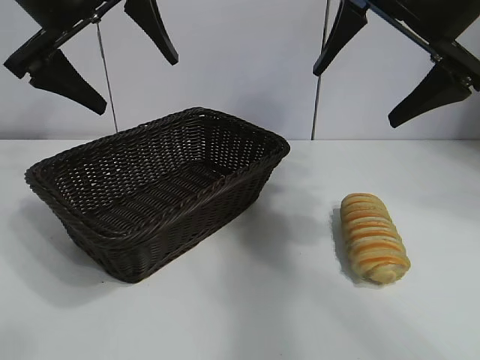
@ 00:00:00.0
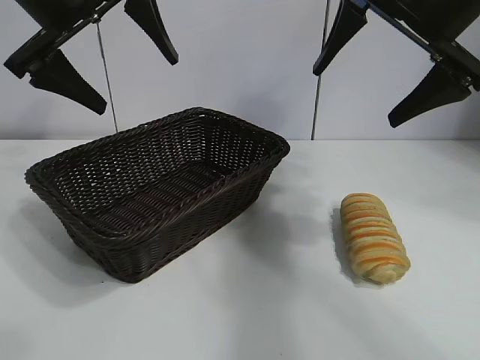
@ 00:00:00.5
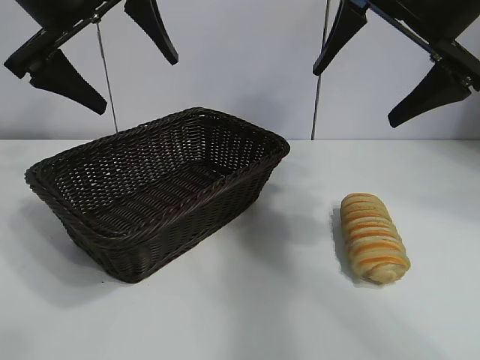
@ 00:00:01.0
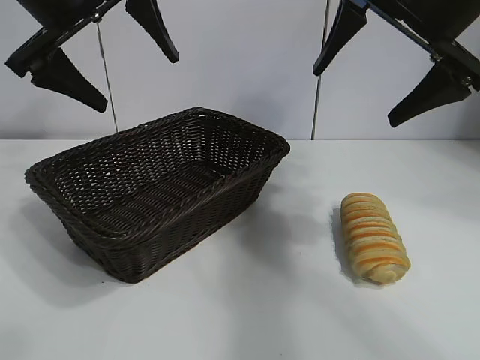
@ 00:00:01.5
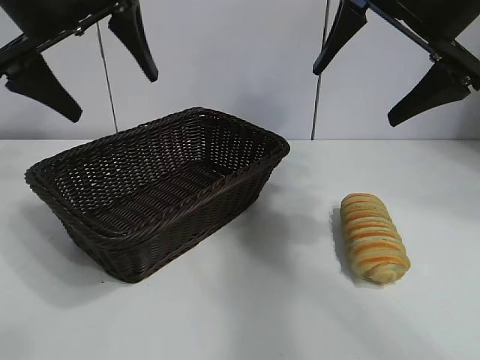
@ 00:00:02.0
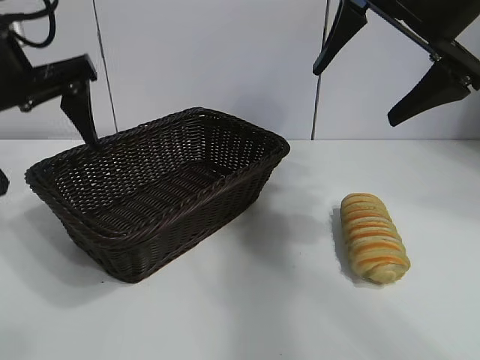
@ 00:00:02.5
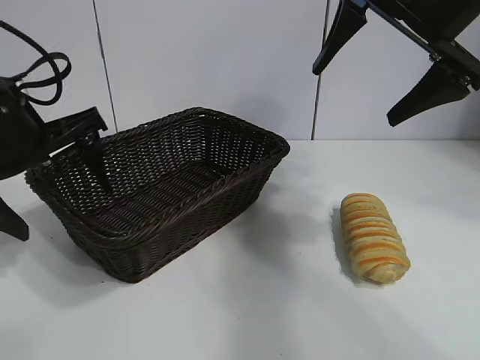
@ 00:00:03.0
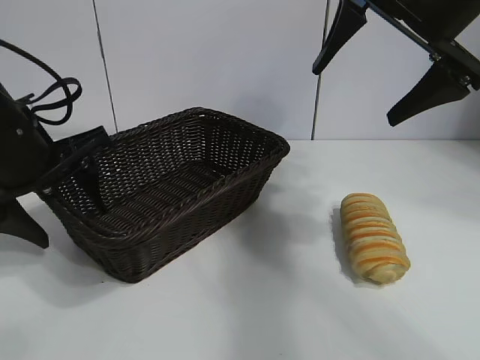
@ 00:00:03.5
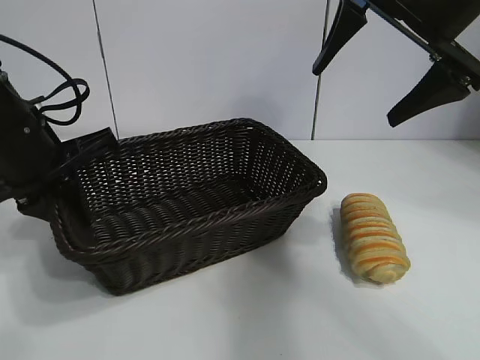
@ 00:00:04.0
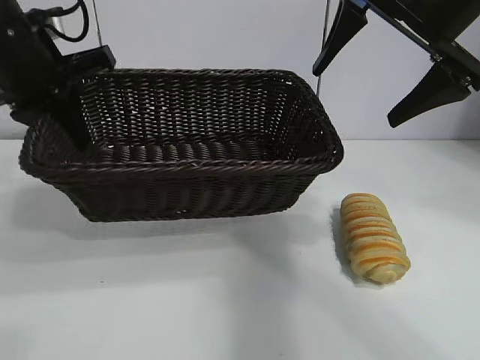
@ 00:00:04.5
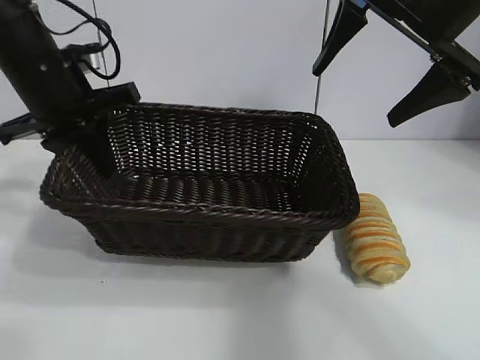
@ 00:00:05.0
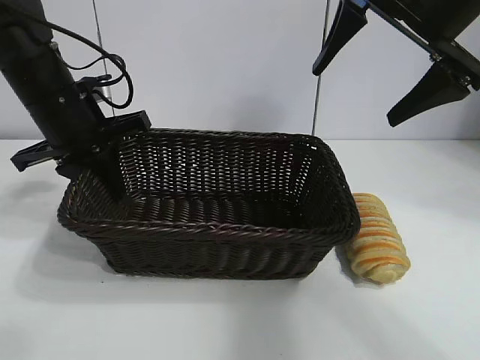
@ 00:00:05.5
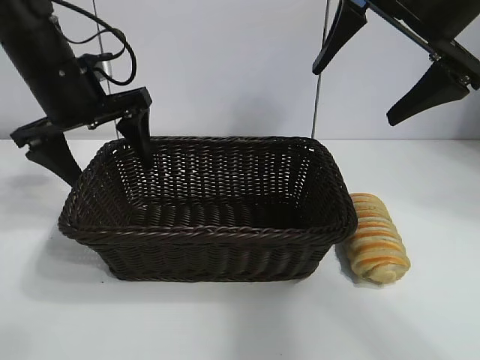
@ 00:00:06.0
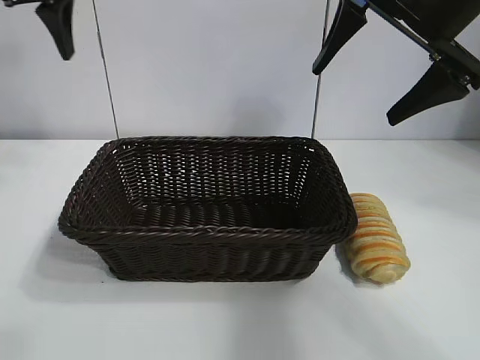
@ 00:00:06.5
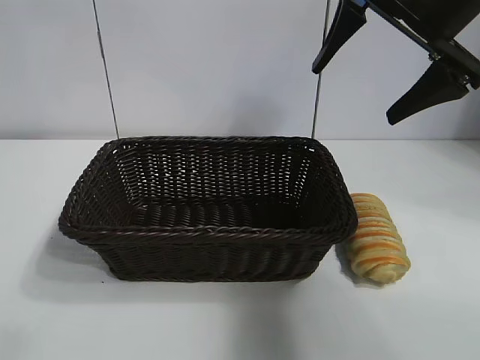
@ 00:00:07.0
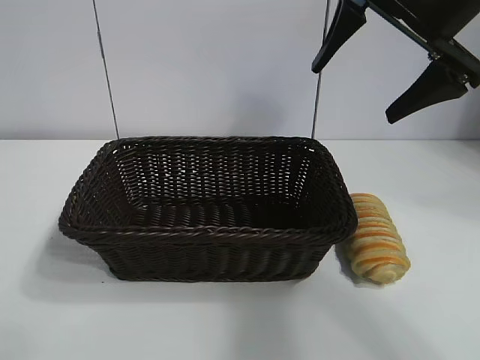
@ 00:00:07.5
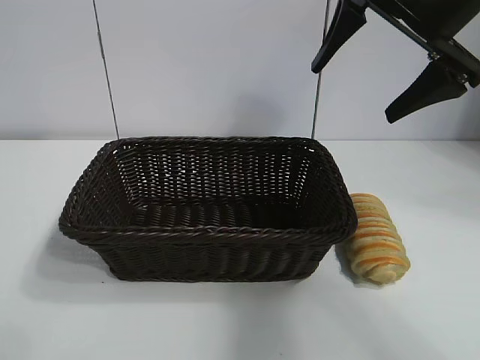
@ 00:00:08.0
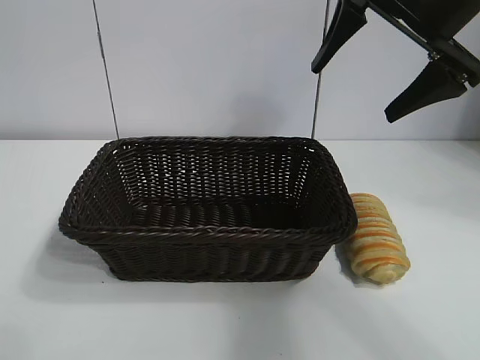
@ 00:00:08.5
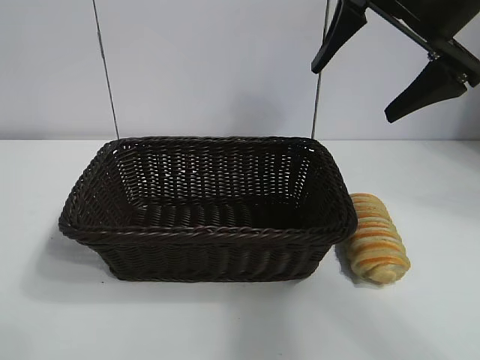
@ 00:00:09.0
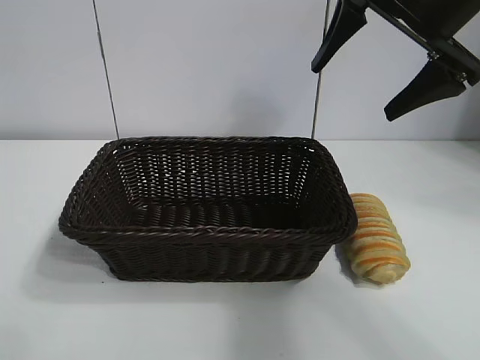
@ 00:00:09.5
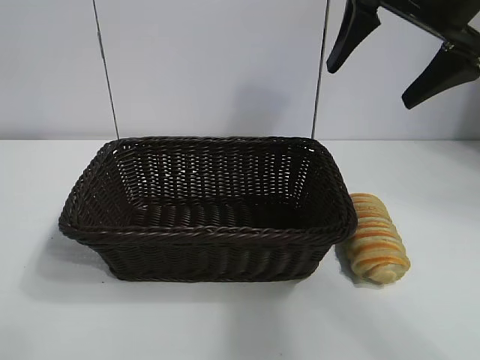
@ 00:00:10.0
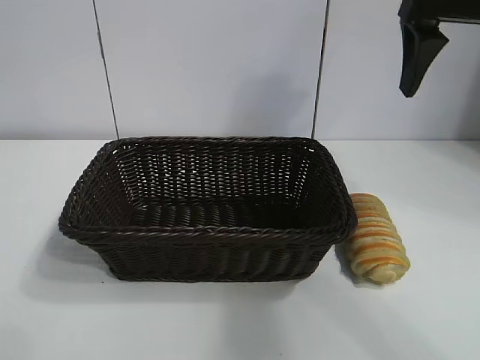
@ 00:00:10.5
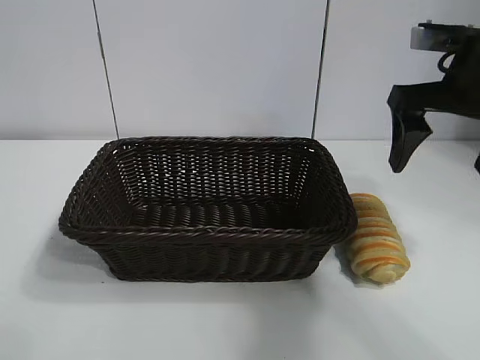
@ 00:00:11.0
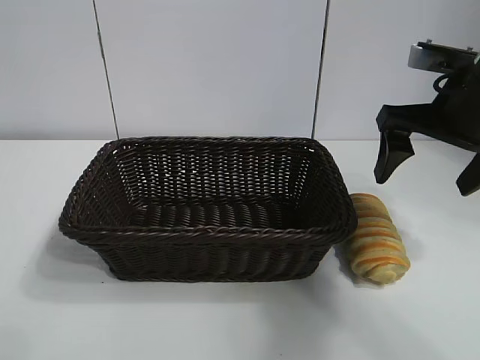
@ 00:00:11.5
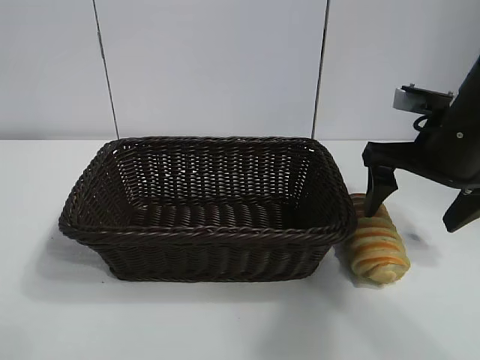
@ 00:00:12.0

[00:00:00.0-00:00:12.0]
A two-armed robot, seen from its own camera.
Task of the whole recording: pick up the long bread and put it into the basket.
Step, 00:00:02.0 to 00:00:03.5: Grasp the basket with the left gripper.
Step, 00:00:04.0 to 00:00:05.5: Place the basket in the center of the table with the left gripper.

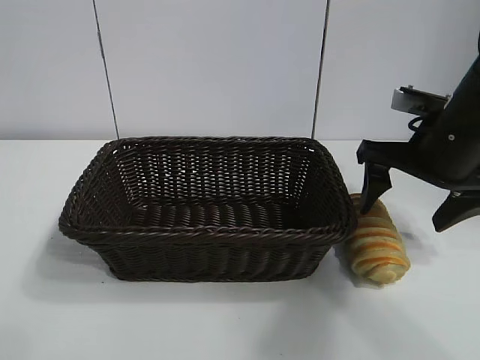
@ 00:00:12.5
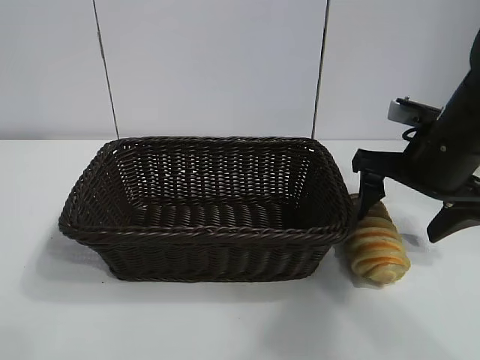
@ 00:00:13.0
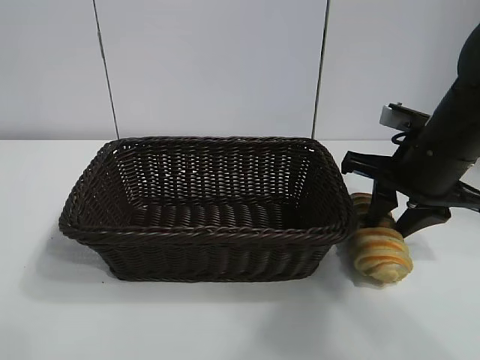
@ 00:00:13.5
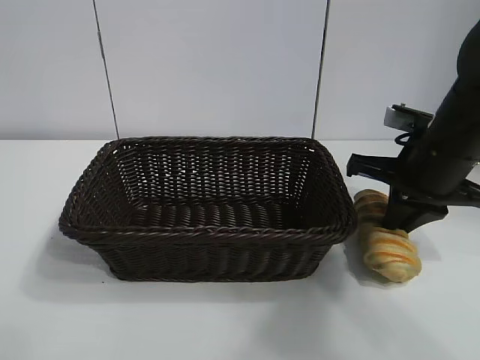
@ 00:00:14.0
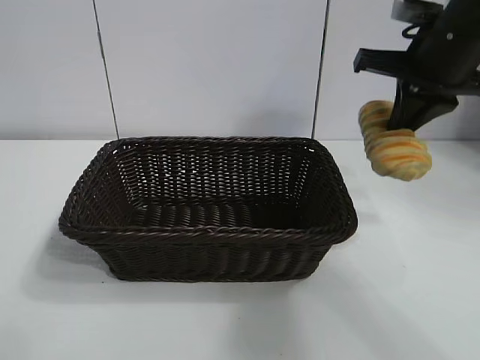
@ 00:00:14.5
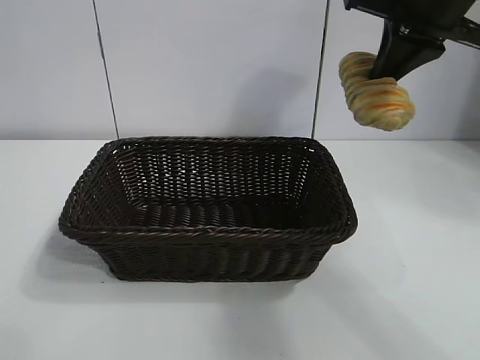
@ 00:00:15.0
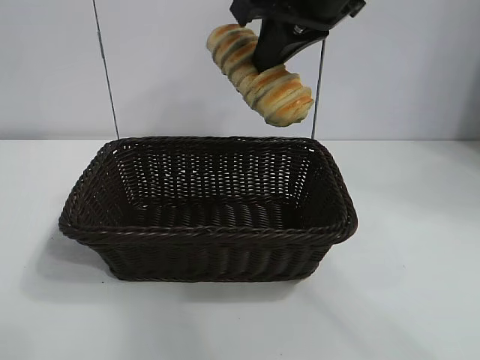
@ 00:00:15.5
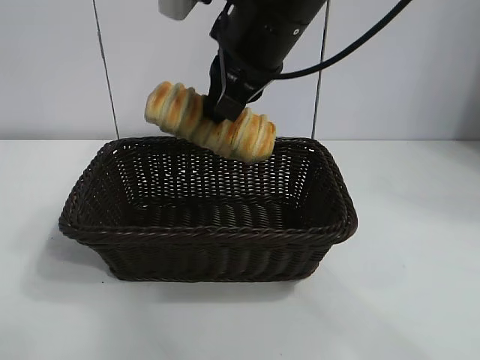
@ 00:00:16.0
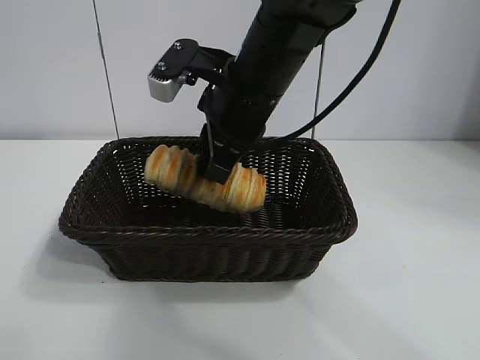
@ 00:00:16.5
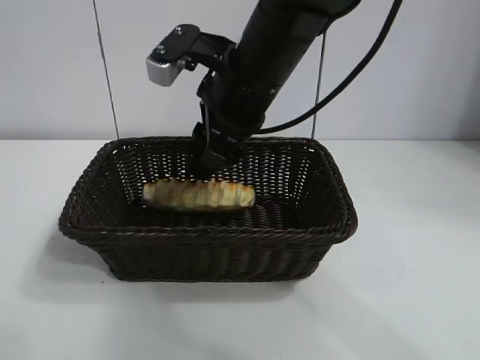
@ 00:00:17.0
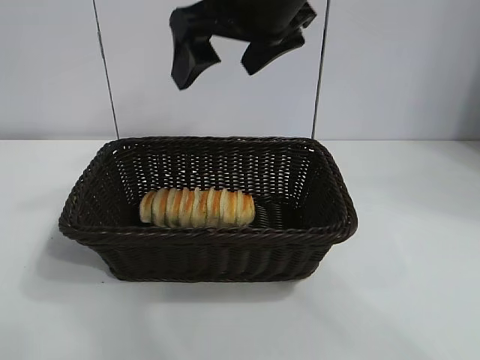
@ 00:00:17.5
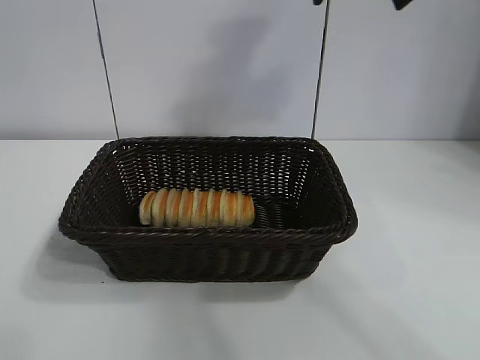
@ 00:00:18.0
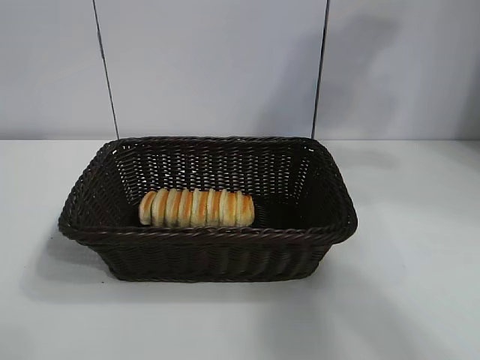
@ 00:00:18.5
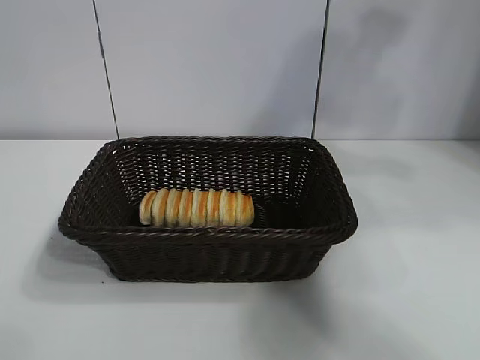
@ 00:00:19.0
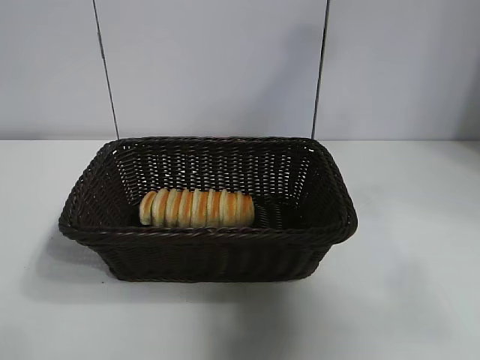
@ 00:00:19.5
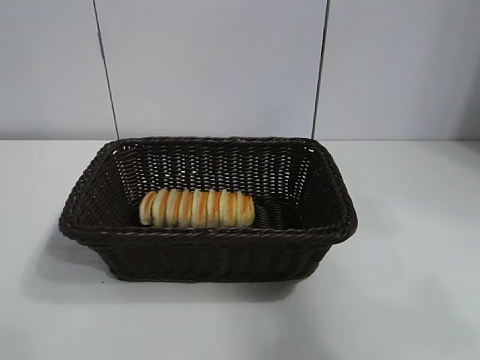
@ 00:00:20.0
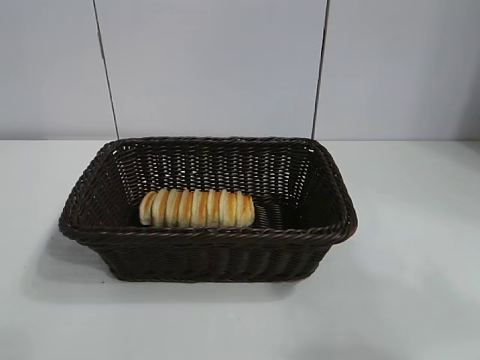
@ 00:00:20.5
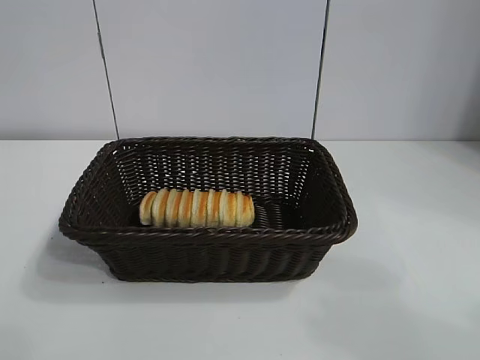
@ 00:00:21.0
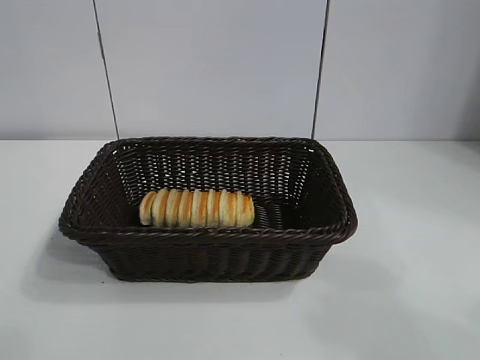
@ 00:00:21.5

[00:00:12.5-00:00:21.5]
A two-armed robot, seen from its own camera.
Task of the whole recording: pick up the long bread and put it into the basket.
Step, 00:00:14.5 to 00:00:17.0: Place the long bread in the basket with right gripper.
